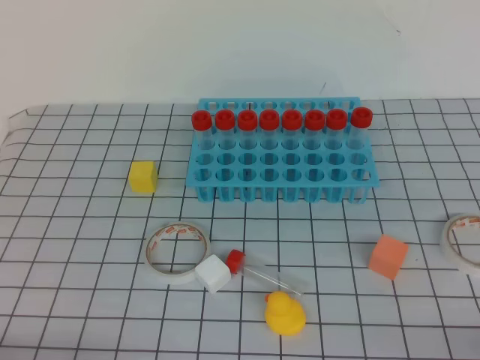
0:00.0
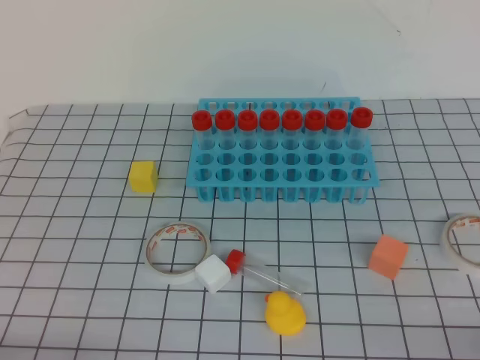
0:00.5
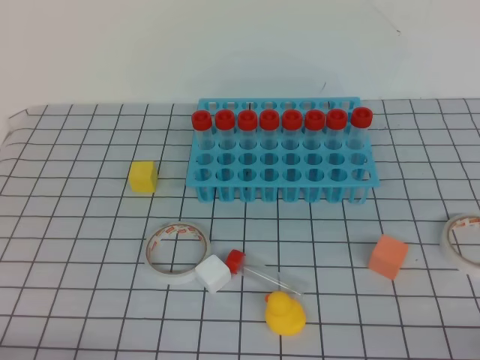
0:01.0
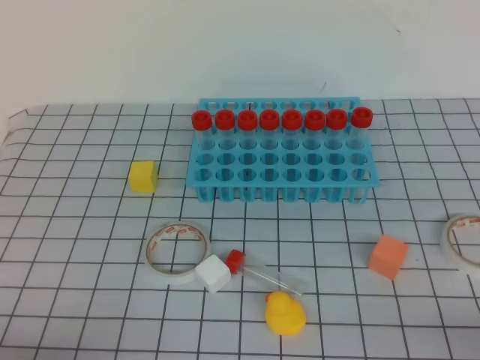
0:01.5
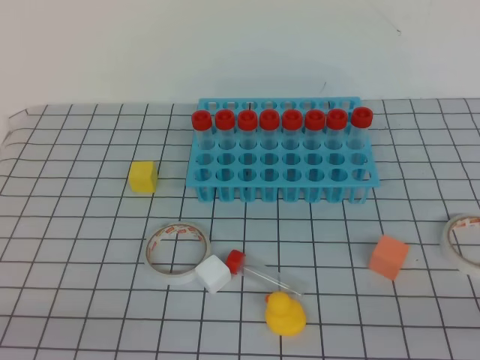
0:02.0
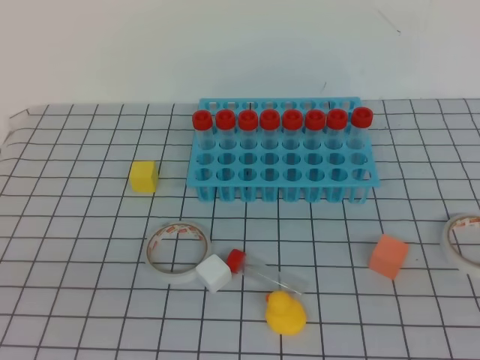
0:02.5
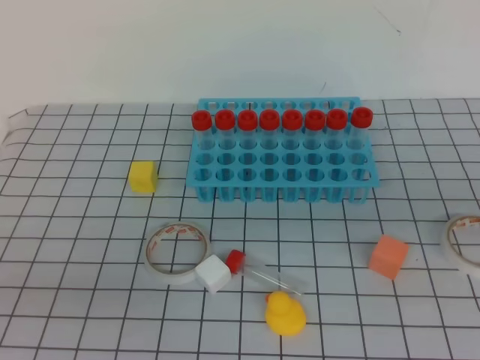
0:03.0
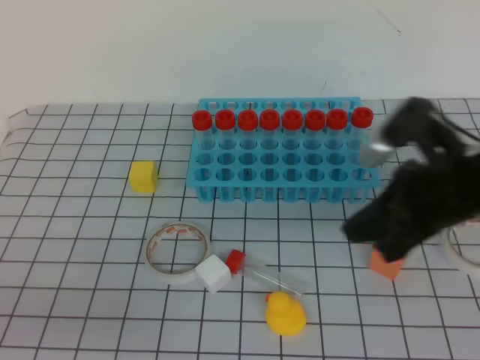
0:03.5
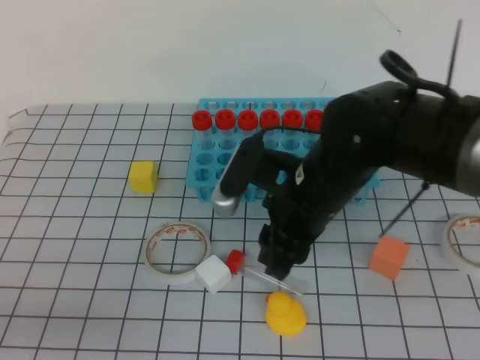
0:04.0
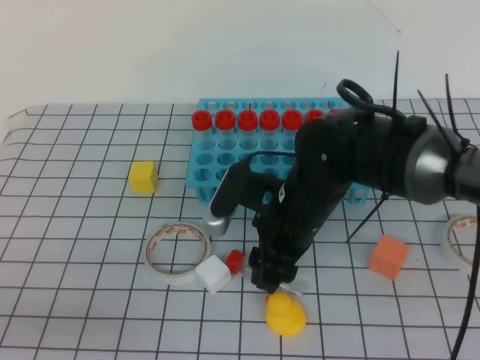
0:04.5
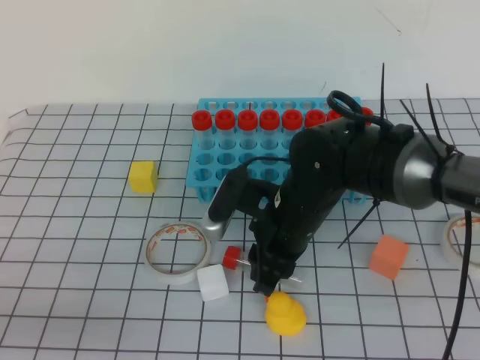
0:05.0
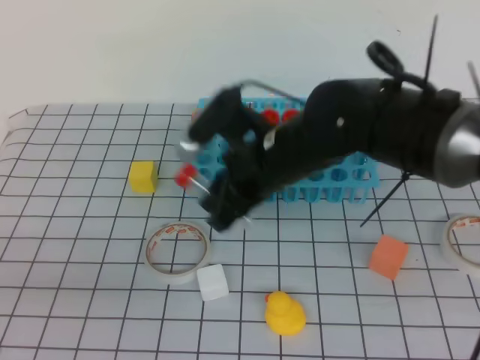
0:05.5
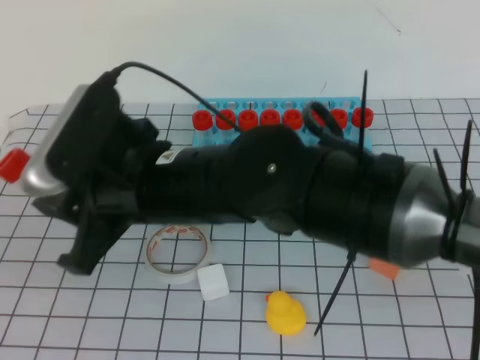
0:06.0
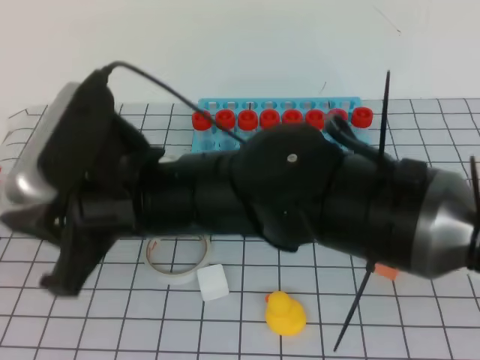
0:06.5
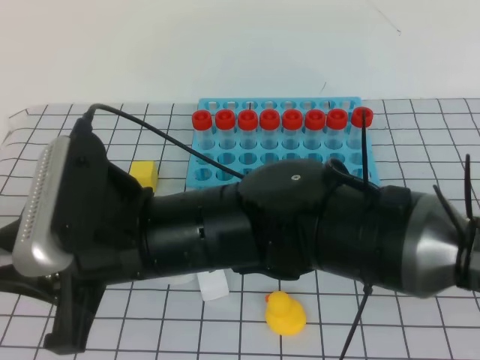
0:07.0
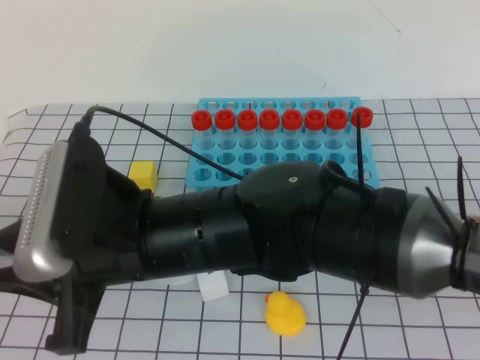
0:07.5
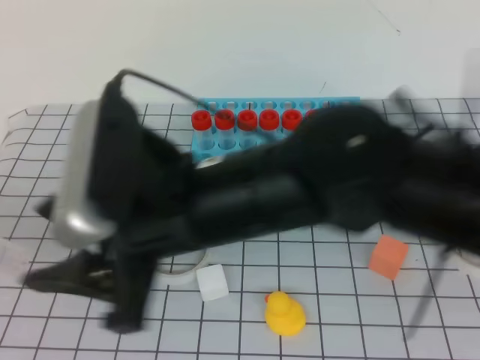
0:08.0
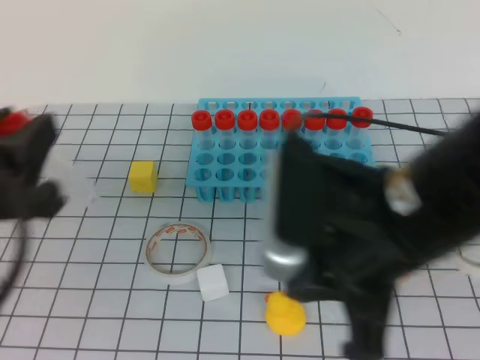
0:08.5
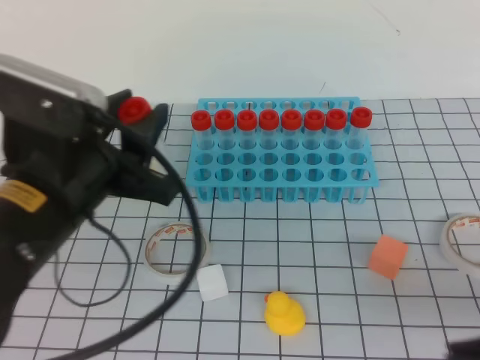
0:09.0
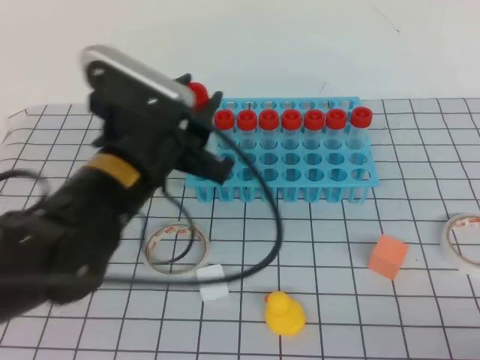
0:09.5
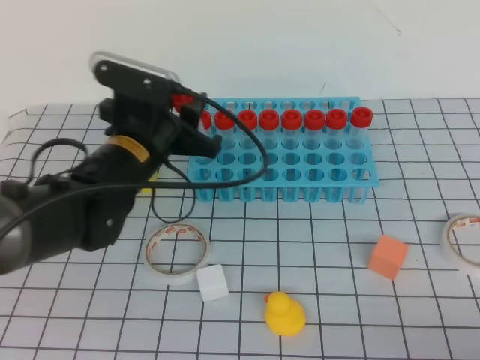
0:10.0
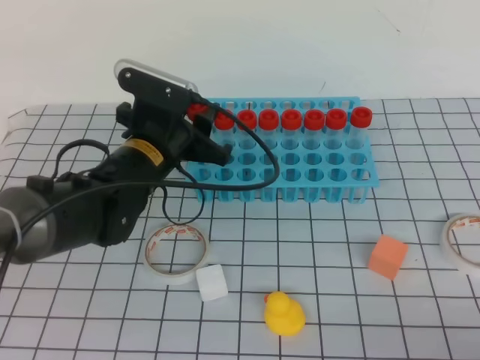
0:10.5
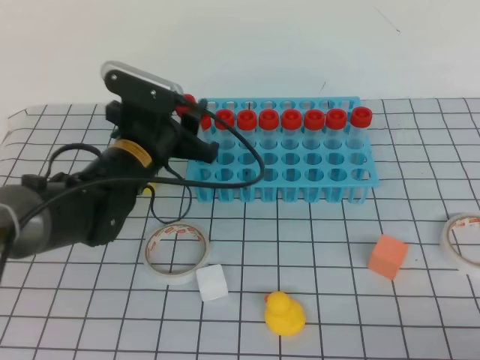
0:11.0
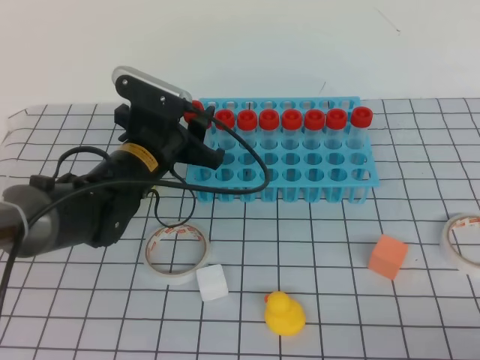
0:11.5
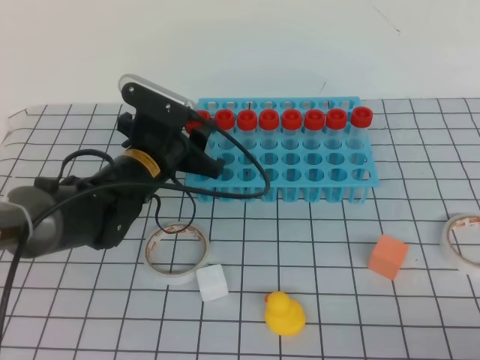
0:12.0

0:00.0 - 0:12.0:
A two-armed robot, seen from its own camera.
0:02.0 - 0:04.0: The right gripper heads forward and to the left, covering roughly 35 cm, and opens its fingers; the left gripper reaches approximately 10 cm upward, then returns.
0:04.0 - 0:06.0: The right gripper moves to the left and upward, approximately 15 cm, and opens and closes again.
0:06.0 - 0:08.0: The left gripper opens its fingers. The right gripper is displaced backward by roughly 5 cm, and opens up.
0:08.0 - 0:10.0: The right gripper moves to the right and backward, approximately 35 cm, and closes up. The left gripper travels forward and to the right by approximately 30 cm.
0:10.0 - 0:12.0: The left gripper moves about 5 cm.

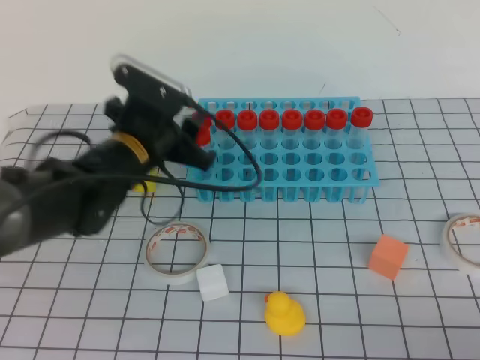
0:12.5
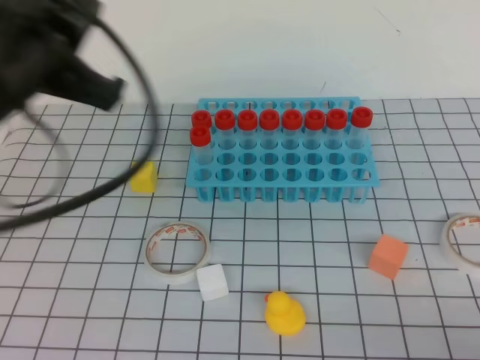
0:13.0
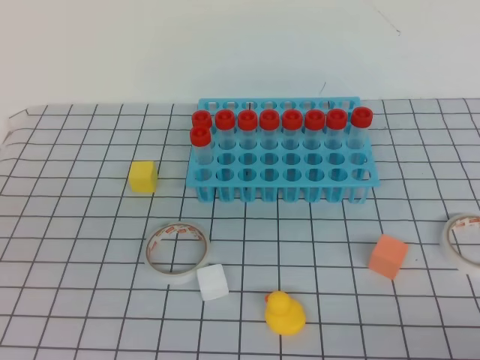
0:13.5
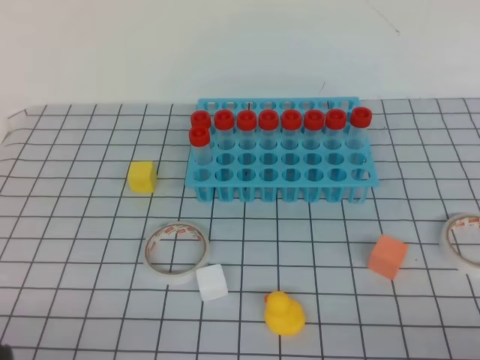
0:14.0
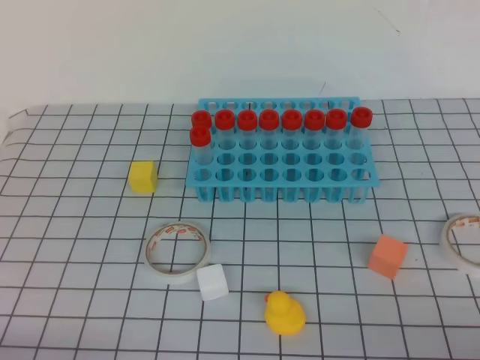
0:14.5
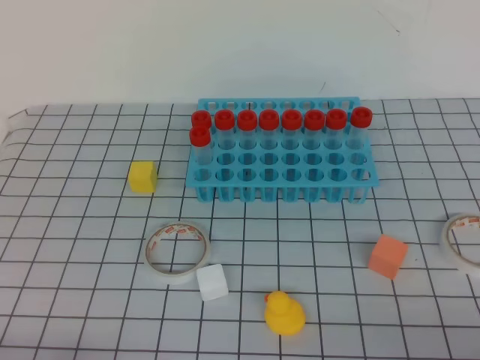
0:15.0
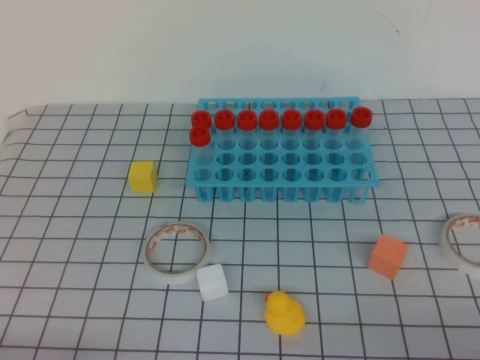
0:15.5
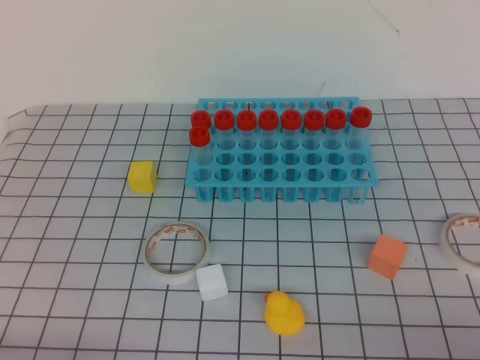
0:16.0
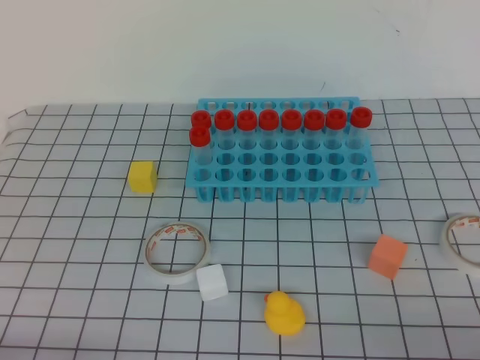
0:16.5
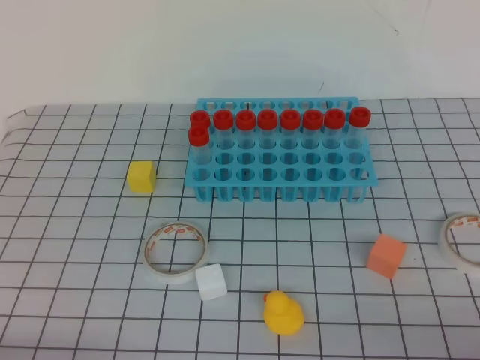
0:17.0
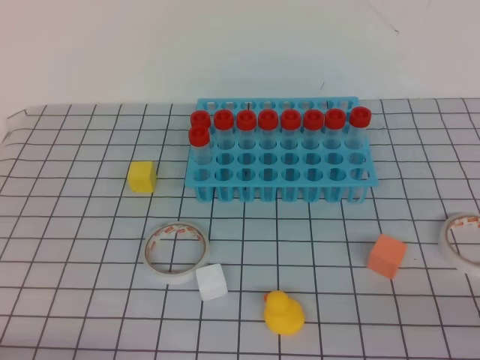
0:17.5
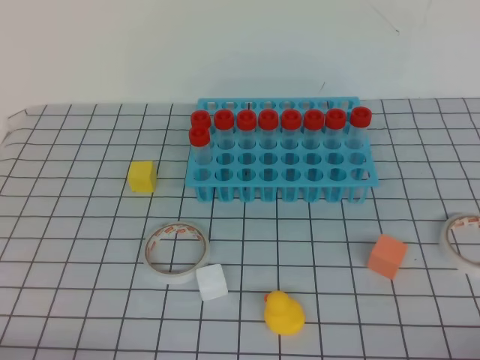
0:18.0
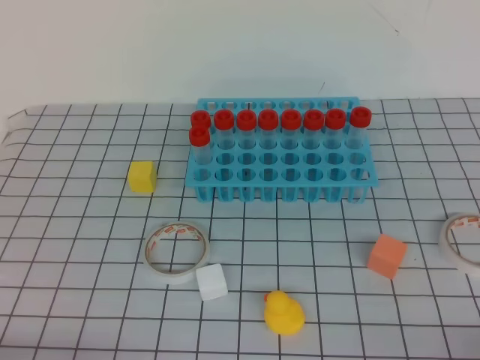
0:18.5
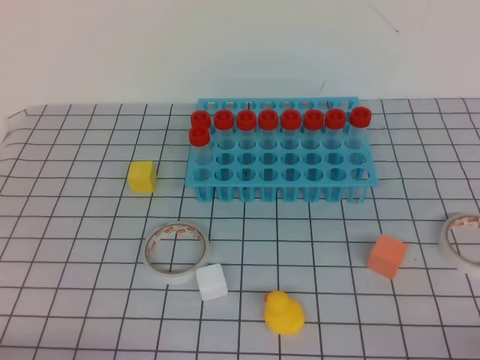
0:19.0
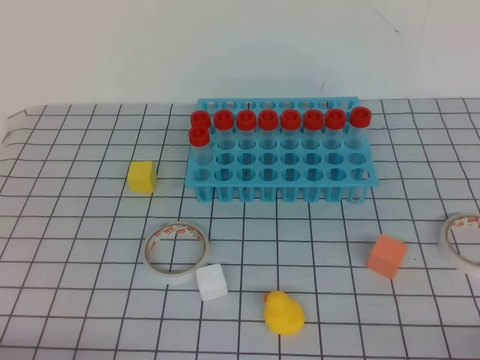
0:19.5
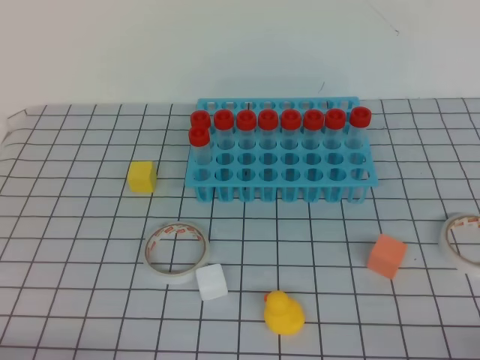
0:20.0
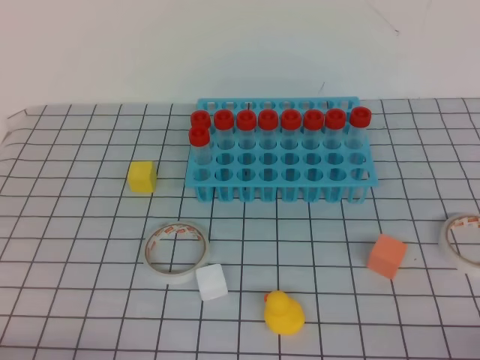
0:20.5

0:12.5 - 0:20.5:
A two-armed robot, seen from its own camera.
0:12.5 - 0:14.5: The left gripper heads backward and to the left, covering approximately 35 cm, and closes up.
0:18.5 - 0:20.5: Neither gripper changes place.
